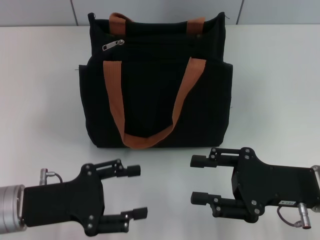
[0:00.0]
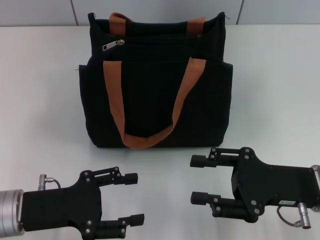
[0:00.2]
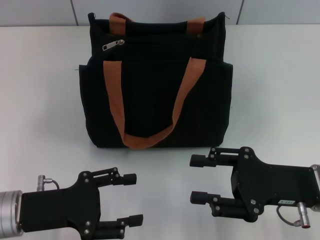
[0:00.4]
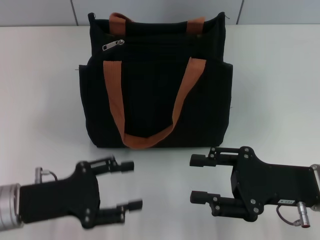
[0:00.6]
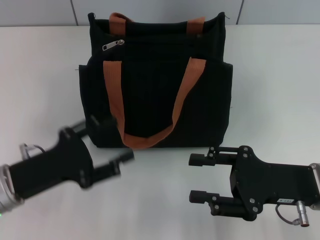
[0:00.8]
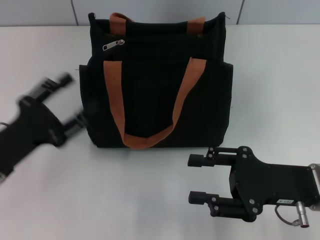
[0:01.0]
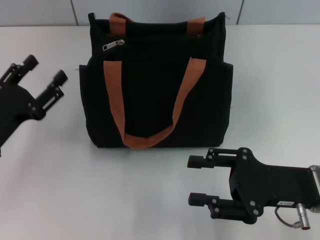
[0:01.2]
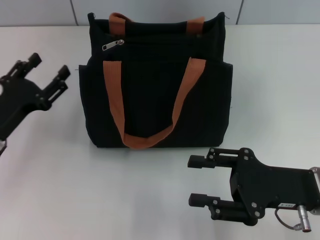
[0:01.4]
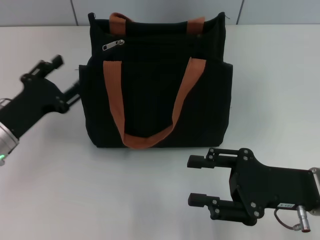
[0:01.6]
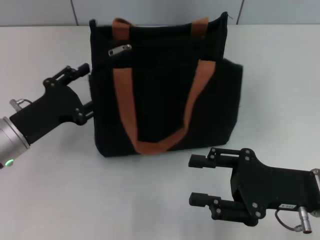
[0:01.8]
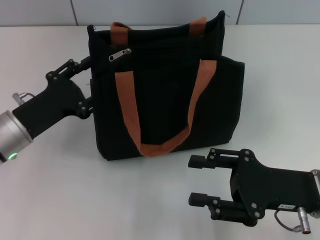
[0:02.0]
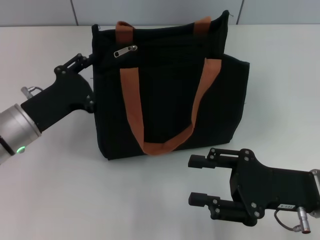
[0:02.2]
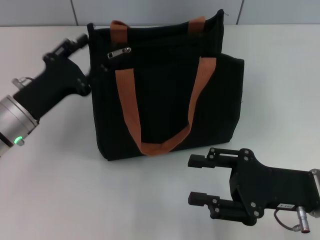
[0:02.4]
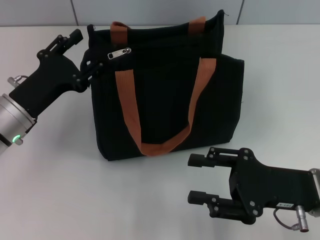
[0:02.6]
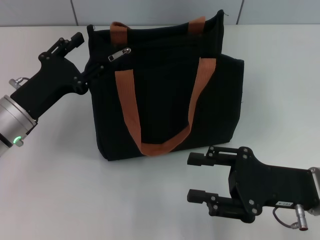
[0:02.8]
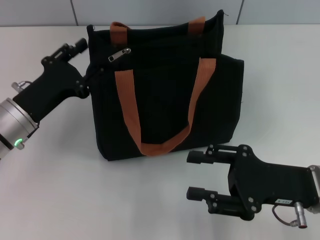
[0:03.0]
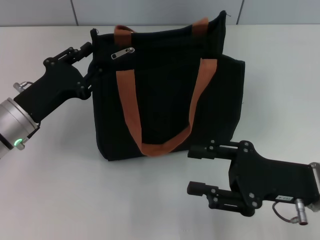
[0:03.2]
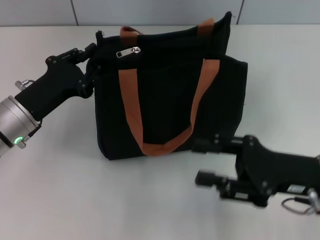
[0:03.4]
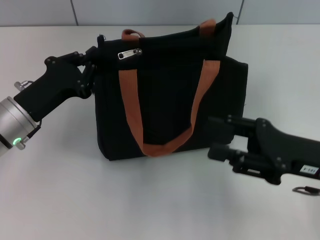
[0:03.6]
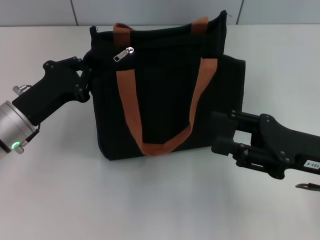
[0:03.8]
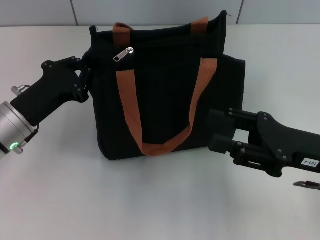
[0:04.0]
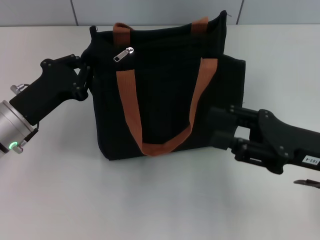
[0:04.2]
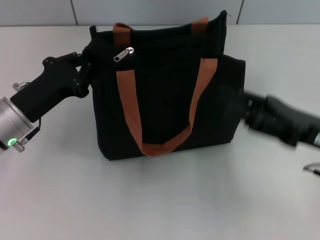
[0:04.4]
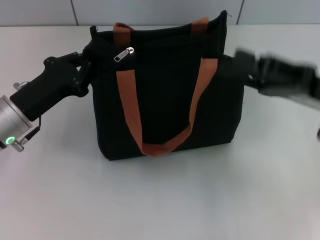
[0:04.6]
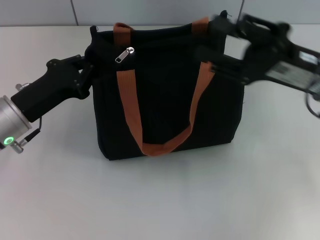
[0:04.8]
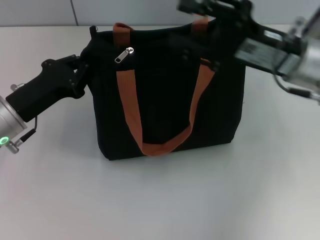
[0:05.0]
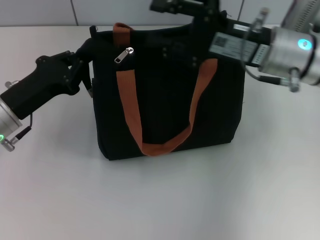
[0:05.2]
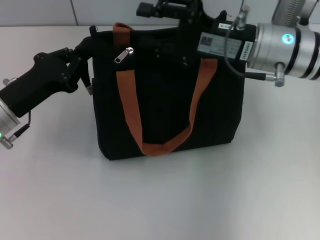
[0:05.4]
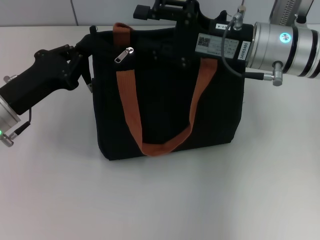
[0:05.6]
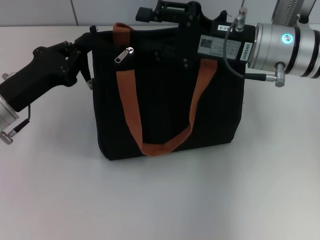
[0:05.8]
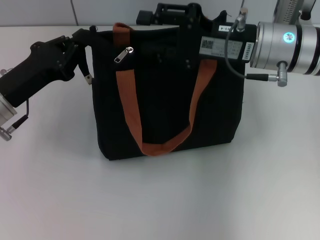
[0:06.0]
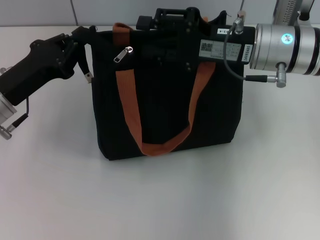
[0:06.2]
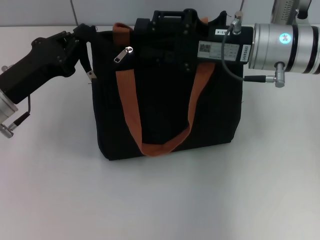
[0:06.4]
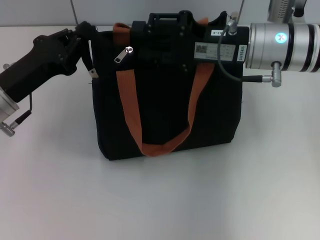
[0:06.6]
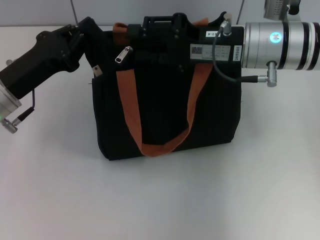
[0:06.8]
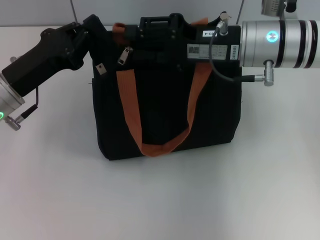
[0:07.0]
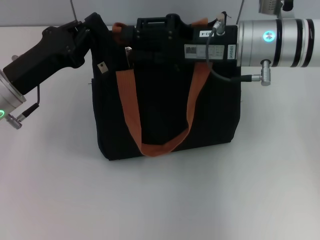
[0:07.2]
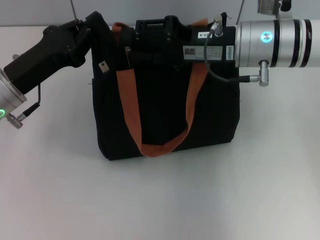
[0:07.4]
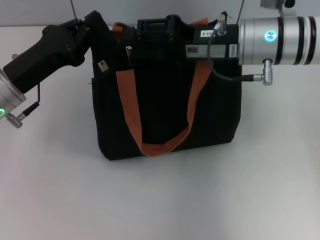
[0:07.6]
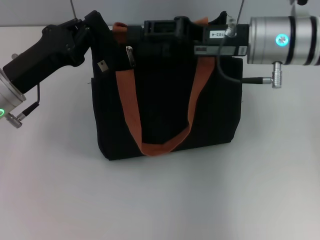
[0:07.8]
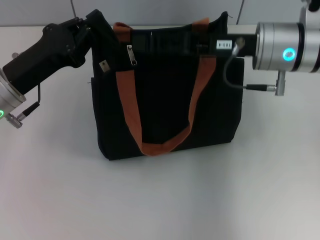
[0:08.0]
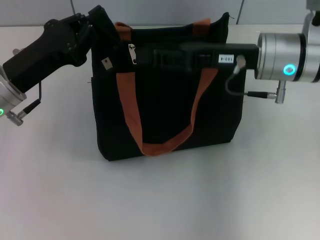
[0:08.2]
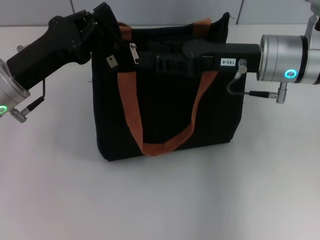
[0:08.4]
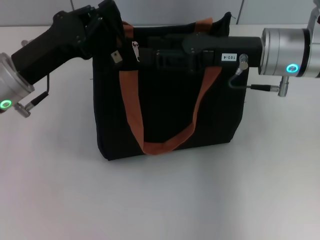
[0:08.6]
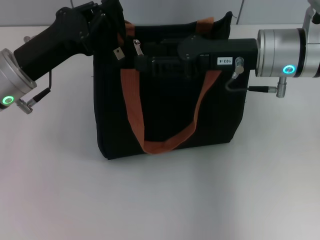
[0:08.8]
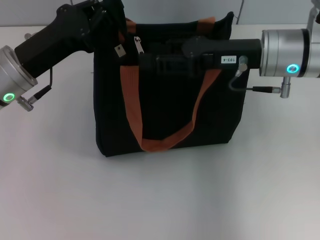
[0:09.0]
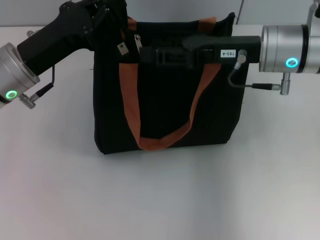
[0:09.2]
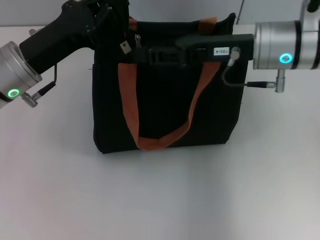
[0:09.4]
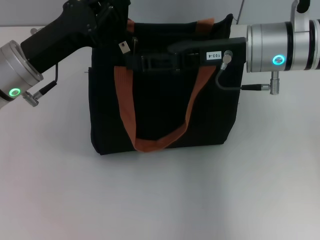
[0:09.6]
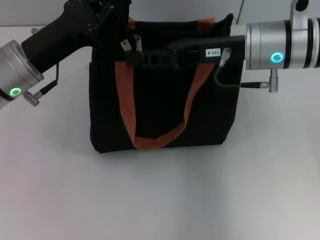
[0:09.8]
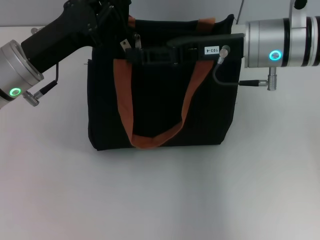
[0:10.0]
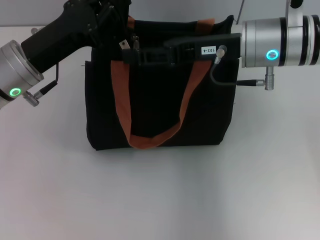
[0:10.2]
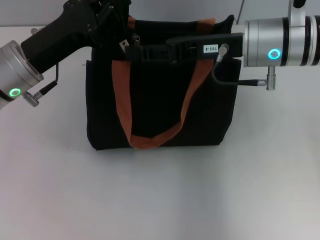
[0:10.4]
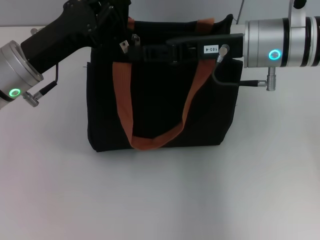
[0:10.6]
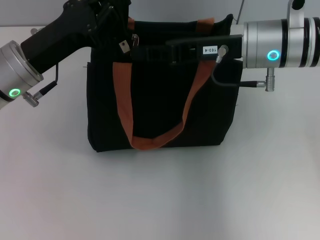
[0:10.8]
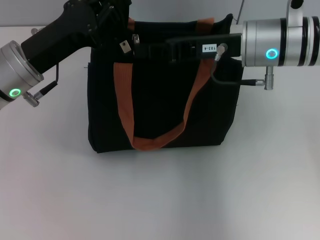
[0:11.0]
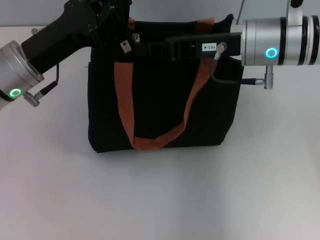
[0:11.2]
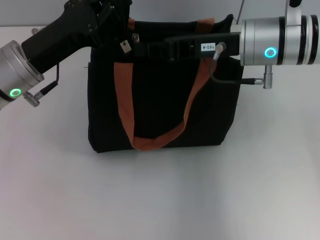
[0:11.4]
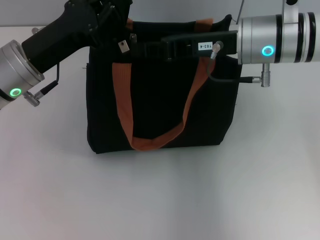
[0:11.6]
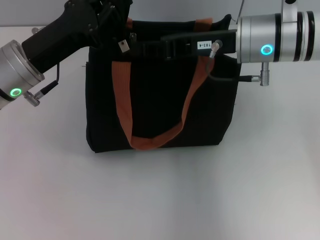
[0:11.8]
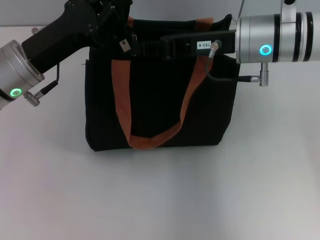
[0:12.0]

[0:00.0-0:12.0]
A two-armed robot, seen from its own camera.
0:00.0 to 0:01.6: The left gripper is displaced forward by roughly 5 cm.
0:01.6 to 0:03.0: The grippers stay close to where they were, moving slightly.
0:03.0 to 0:04.4: The right gripper moves about 5 cm, while the left gripper closes.
0:04.4 to 0:06.0: The right gripper moves forward and to the left, some 15 cm.
0:06.0 to 0:07.6: The grippers move only a little.
0:09.0 to 0:10.4: The grippers move only a little.
0:10.4 to 0:12.0: The right gripper closes.

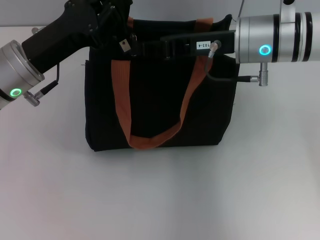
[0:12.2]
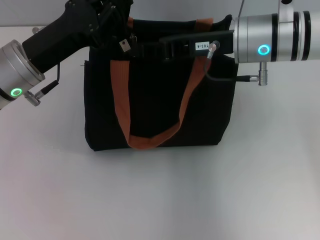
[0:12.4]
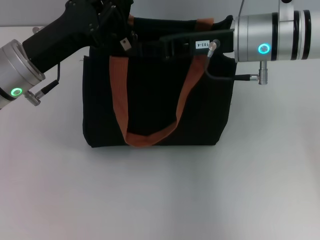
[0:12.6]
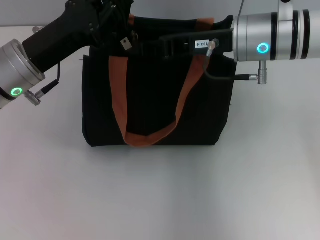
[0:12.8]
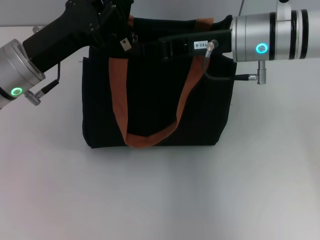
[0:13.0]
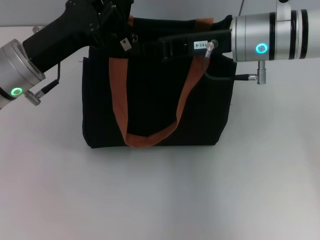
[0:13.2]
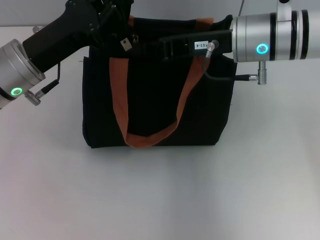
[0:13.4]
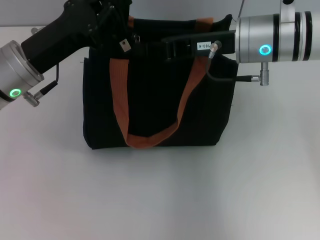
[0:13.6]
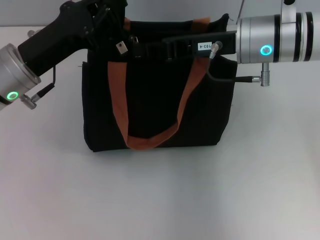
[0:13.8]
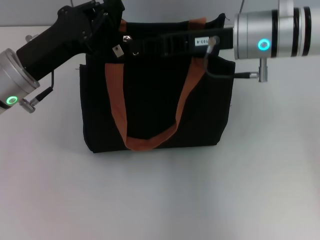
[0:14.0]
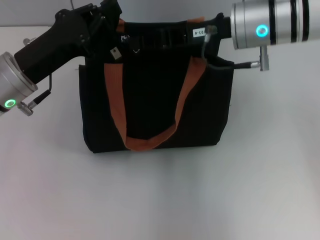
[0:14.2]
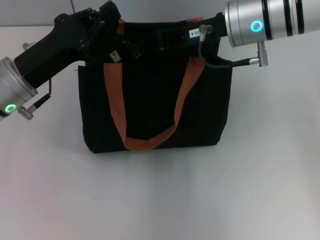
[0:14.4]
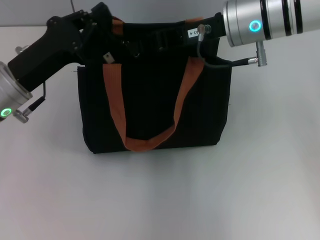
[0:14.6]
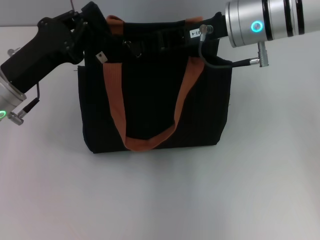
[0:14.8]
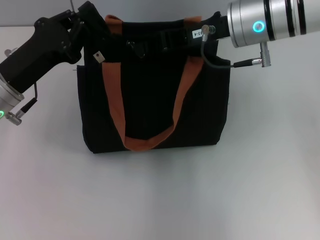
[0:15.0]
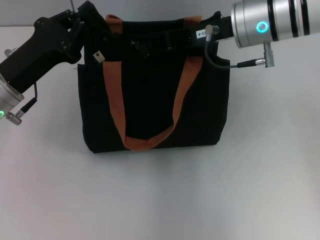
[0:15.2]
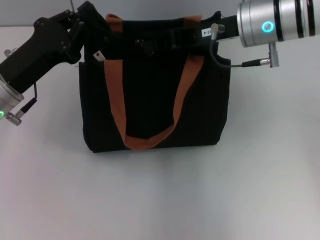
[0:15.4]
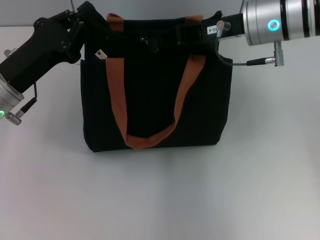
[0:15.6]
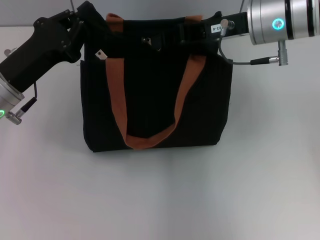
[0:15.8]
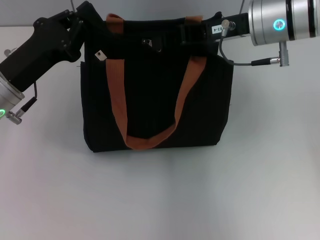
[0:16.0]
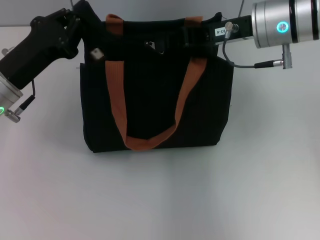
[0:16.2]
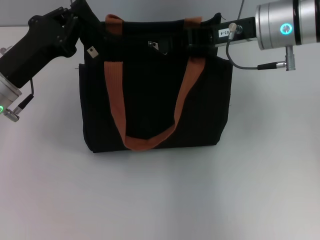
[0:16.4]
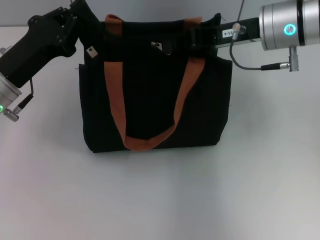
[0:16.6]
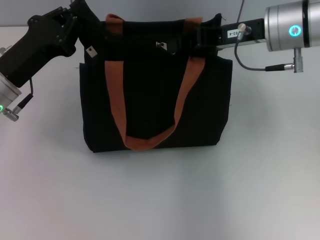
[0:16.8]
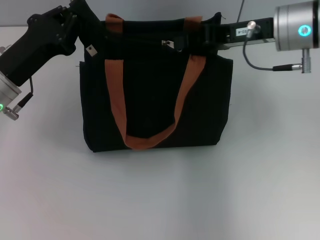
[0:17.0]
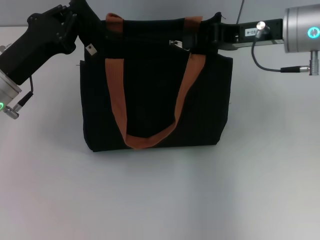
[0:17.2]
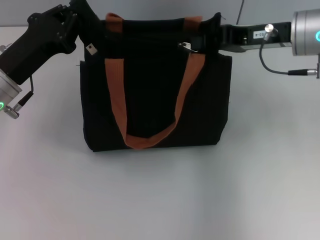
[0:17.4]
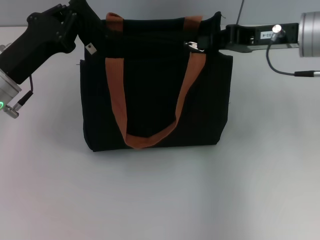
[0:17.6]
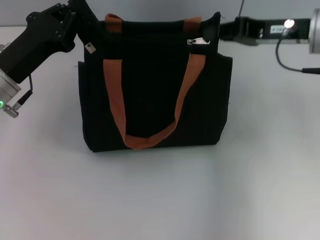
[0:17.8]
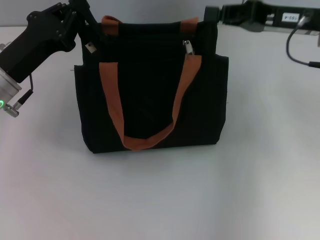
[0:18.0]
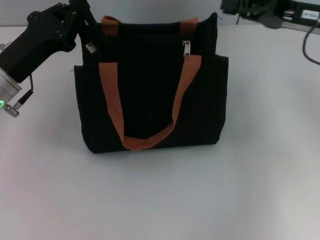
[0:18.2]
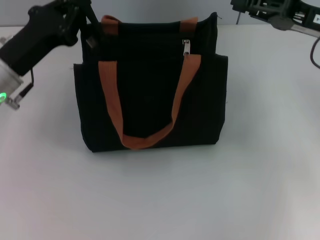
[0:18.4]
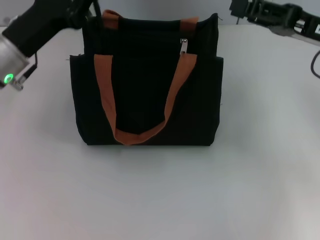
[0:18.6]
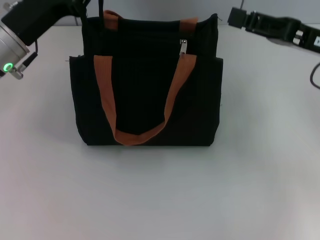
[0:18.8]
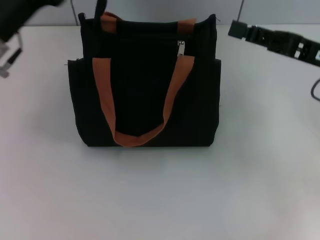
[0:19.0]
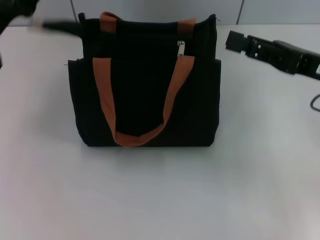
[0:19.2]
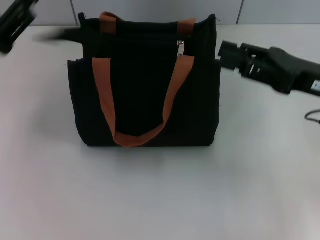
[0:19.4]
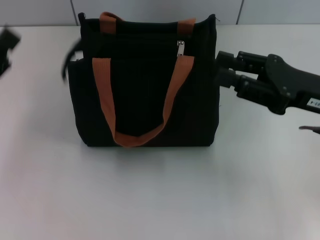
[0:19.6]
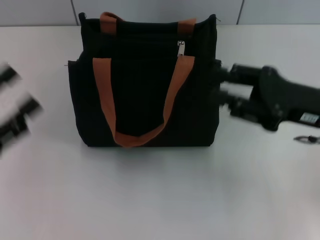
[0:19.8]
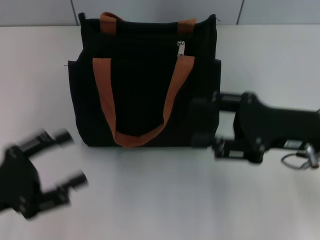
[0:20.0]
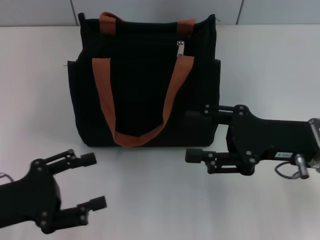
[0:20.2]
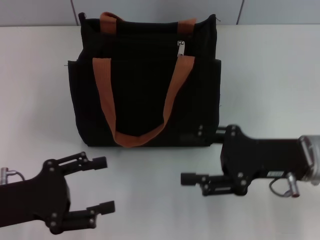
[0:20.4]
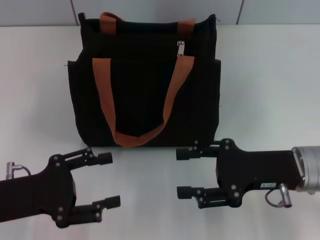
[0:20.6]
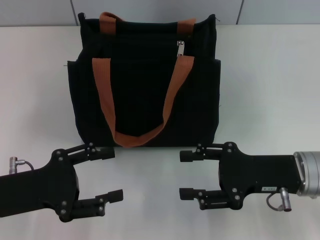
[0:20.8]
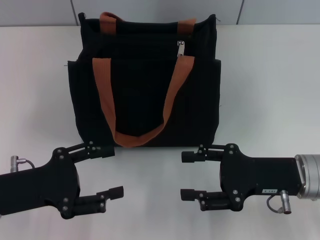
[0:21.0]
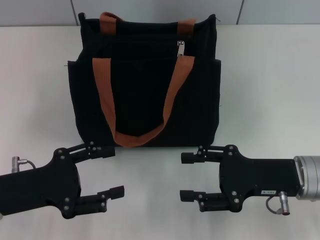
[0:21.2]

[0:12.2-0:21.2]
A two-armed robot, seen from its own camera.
Step, 0:12.2 to 0:18.4: Pull up the zipper with your right hand.
Step, 0:18.6 to 0:19.4: Grab the zipper with your left hand.
0:12.2 to 0:13.8: Both grippers stay put.
0:13.8 to 0:16.6: The grippers move only a little.
0:16.6 to 0:18.2: The right gripper shifts some 10 cm to the right.
0:18.2 to 0:19.8: The right gripper shifts about 10 cm backward and downward, and opens its fingers; the left gripper moves backward and to the left, approximately 15 cm, and opens up.
0:19.8 to 0:21.2: The right gripper heads downward, covering roughly 5 cm; the left gripper shifts some 5 cm to the right.

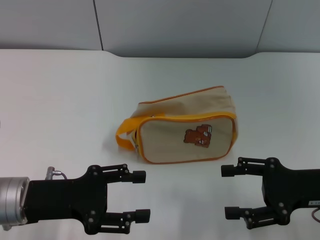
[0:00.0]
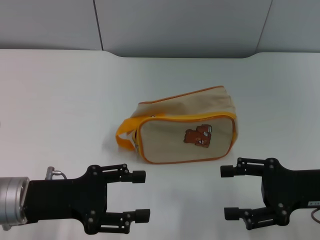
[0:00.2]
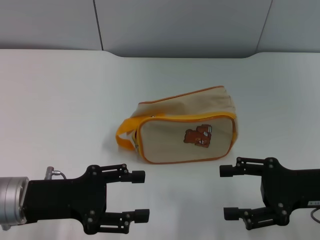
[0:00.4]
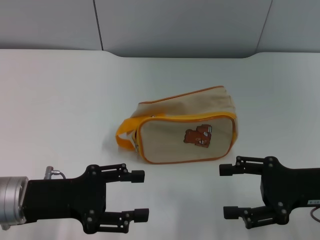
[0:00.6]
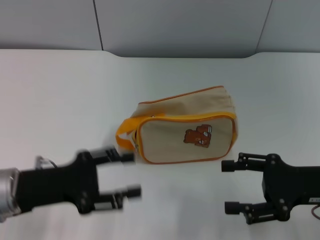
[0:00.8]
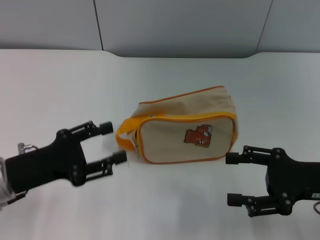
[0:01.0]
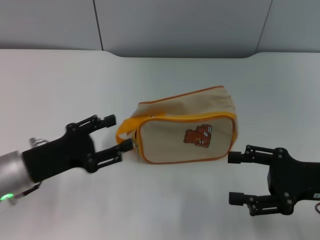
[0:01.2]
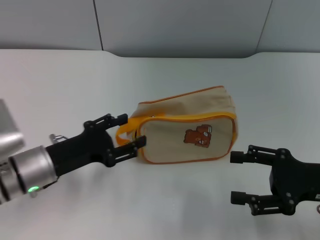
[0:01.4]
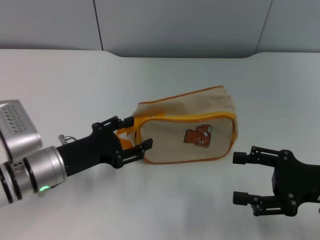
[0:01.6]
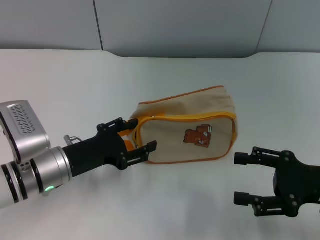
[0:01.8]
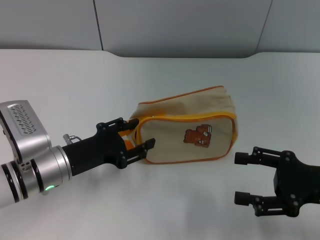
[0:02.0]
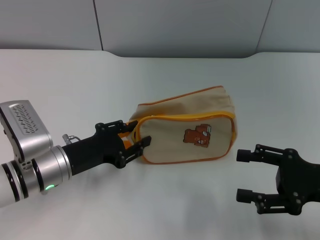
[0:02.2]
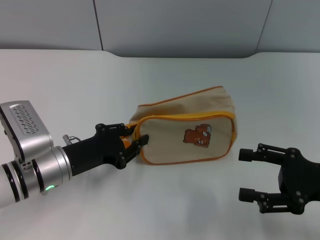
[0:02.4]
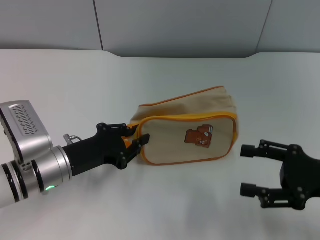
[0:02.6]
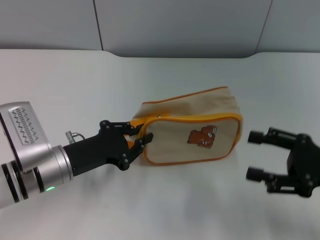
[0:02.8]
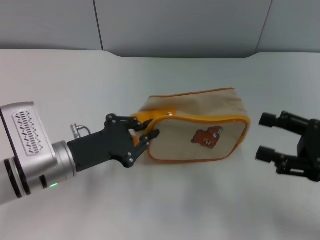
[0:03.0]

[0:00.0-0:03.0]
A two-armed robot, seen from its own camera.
0:00.0 to 0:01.6: The left gripper shifts by some 5 cm.
0:01.6 to 0:03.0: The left gripper closes its fingers.
